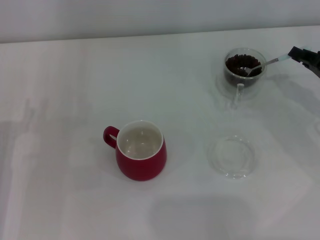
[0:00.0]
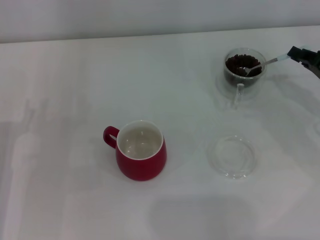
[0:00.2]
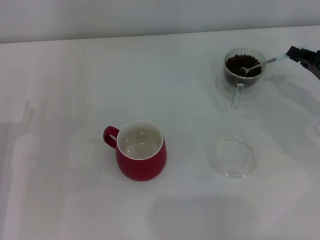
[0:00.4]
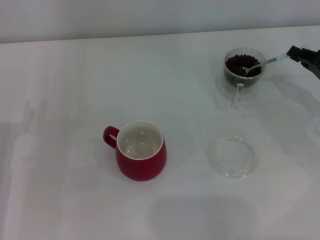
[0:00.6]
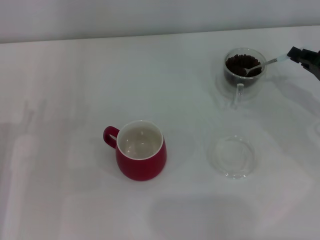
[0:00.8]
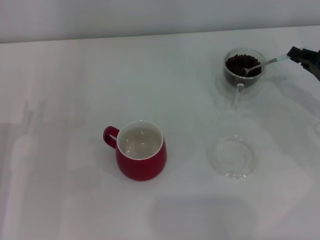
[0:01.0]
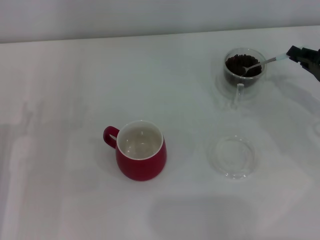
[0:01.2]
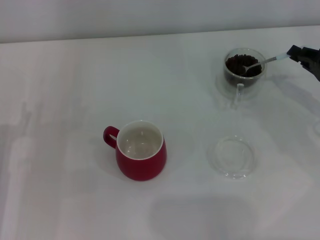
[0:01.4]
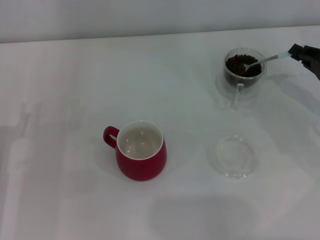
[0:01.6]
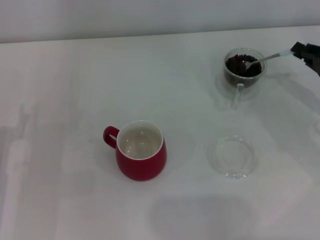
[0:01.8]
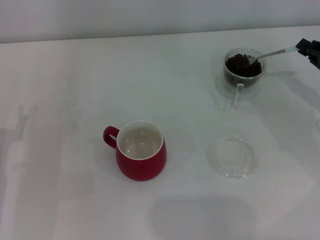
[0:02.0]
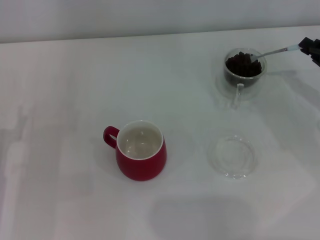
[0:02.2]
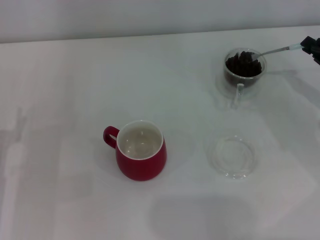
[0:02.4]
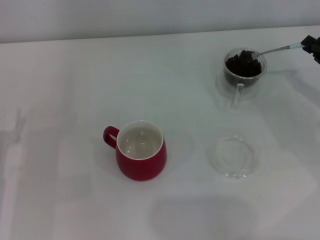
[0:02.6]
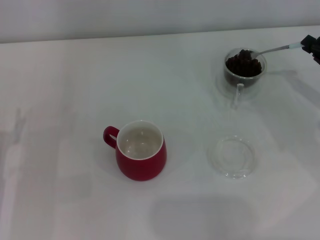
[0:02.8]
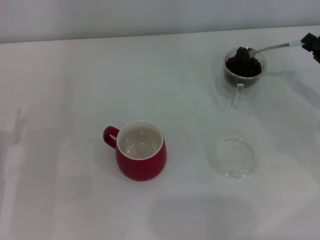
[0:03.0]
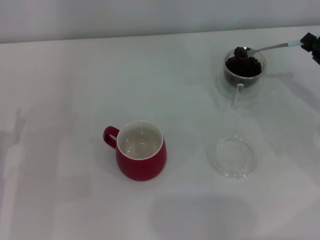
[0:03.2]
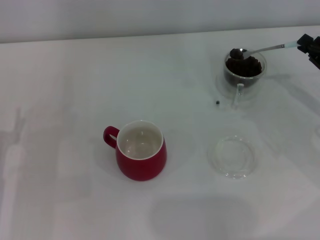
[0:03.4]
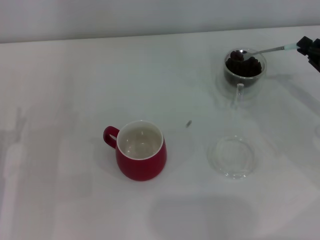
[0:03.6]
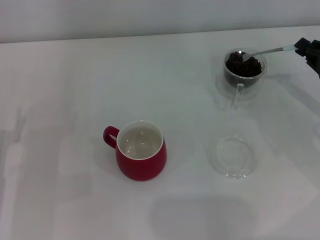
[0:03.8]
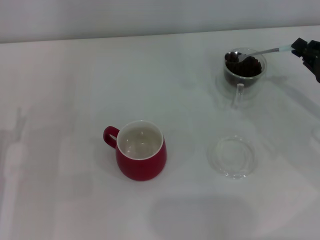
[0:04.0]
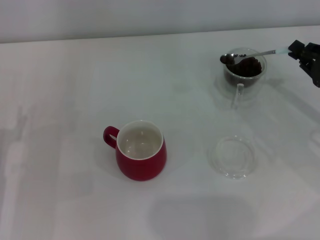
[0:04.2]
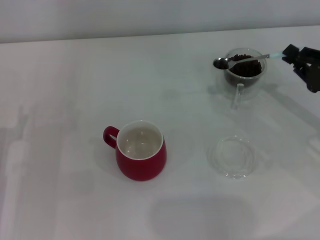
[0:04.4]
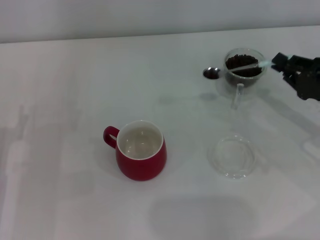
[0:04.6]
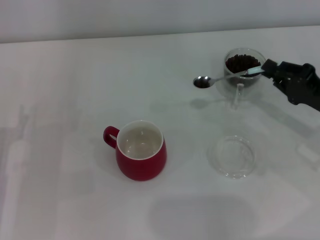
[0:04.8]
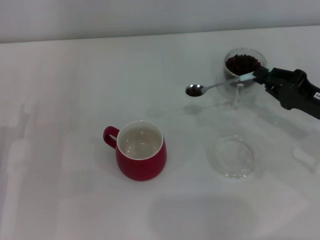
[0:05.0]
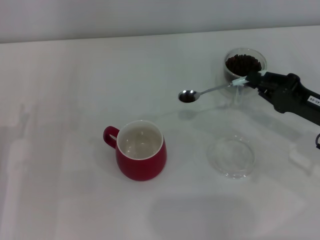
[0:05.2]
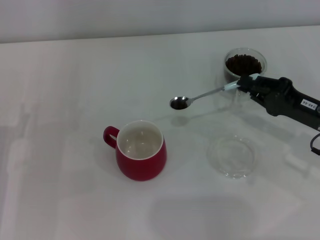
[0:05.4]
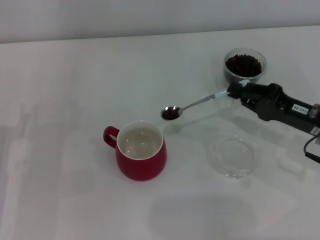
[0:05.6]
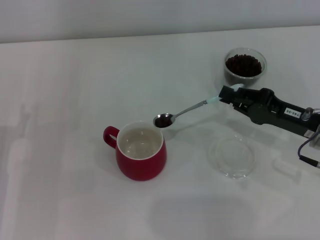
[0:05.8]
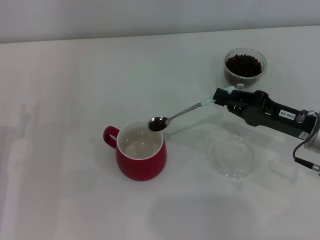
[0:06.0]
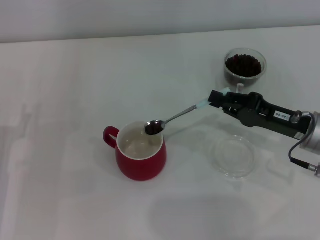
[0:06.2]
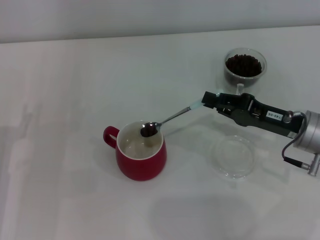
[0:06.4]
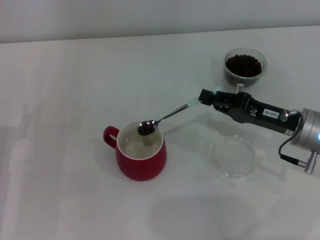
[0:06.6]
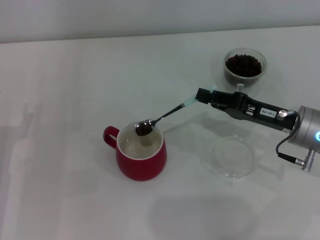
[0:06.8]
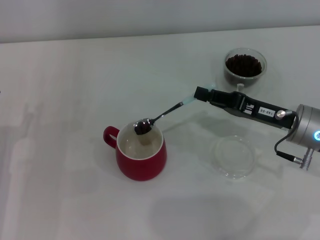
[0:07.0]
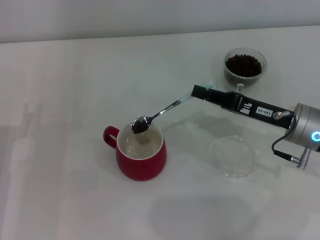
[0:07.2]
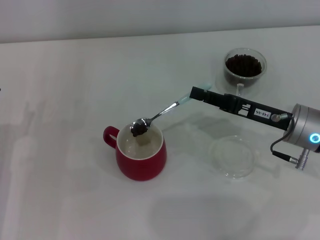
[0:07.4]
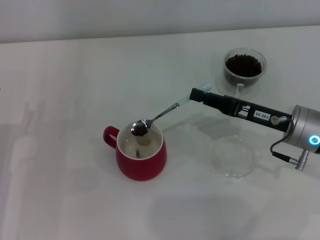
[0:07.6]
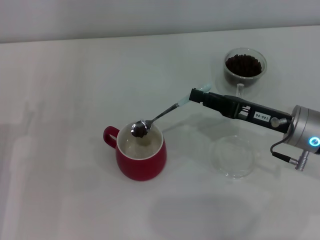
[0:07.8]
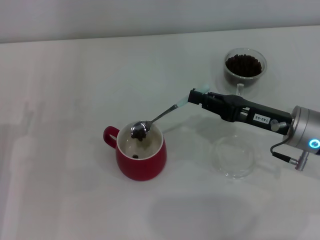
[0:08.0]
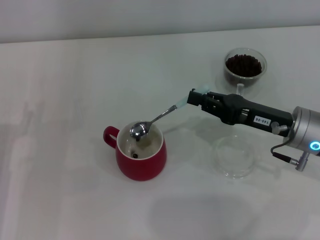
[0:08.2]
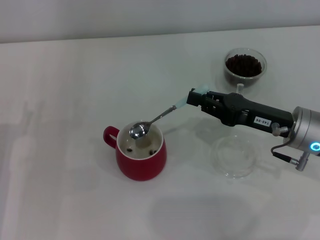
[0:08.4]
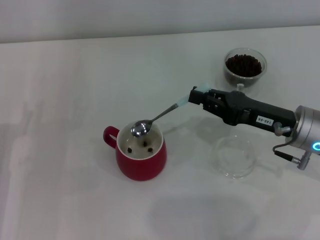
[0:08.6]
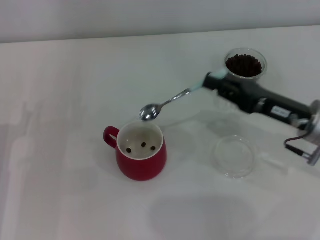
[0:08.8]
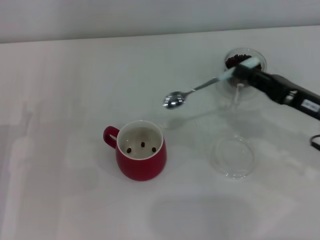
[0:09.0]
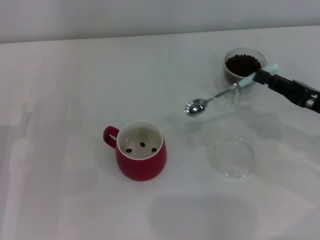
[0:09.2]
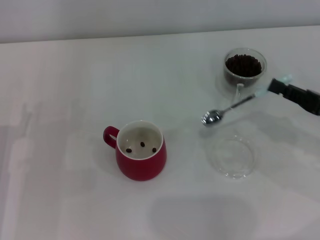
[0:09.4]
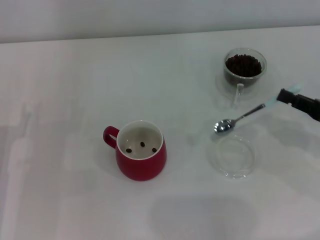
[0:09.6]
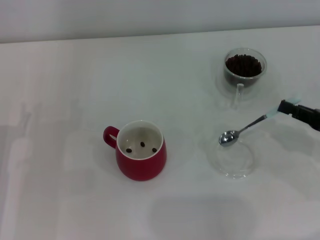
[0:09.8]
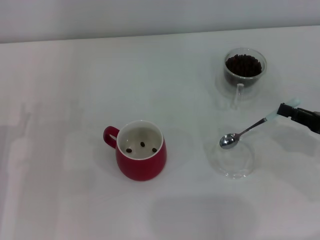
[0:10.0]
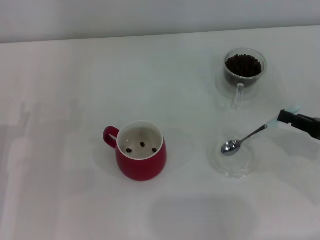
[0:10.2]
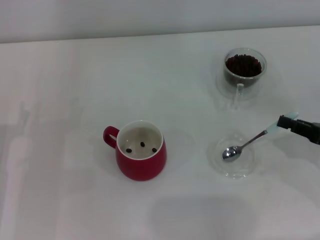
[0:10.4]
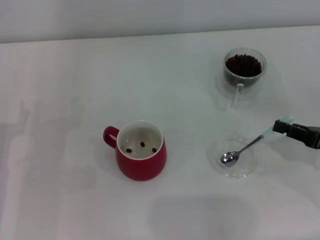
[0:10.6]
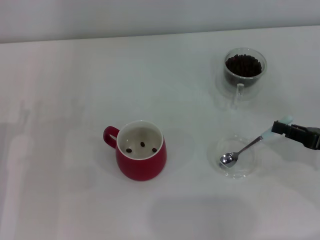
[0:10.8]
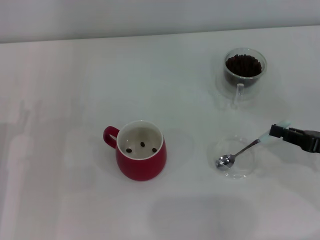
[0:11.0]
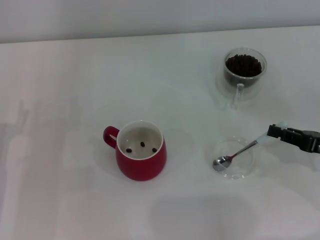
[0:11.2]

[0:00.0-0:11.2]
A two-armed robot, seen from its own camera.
Task of the whole recording: Use a blue spoon to take out the coffee beans from the glass and pour them into the red cup.
Step, 0:00.0 to 0:08.6: Scoop a spoonful of beans into the cup with the right gripper.
0:01.6 to 0:03.2: The grippers make only small movements.
0:03.2 to 0:04.8: The right gripper ends up roughly 5 cm from where it was.
0:04.8 to 0:06.4: The right gripper travels to the left by some 5 cm.
0:08.0 to 0:09.6: The right gripper is displaced to the right by about 10 cm.
0:09.6 to 0:11.2: The grippers make only small movements.

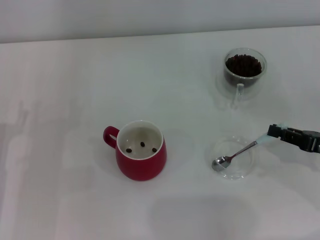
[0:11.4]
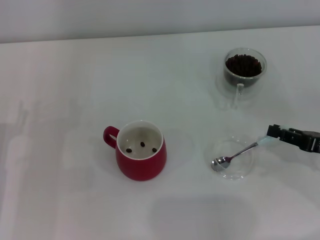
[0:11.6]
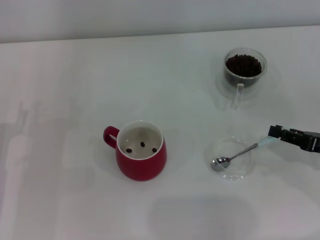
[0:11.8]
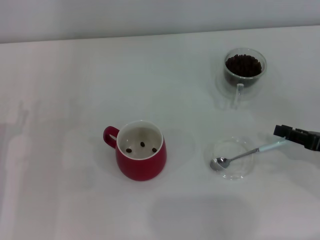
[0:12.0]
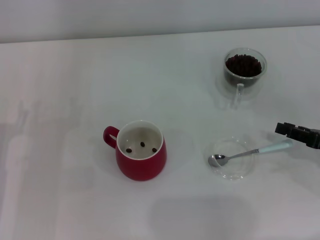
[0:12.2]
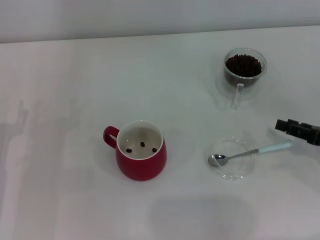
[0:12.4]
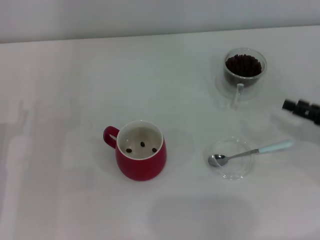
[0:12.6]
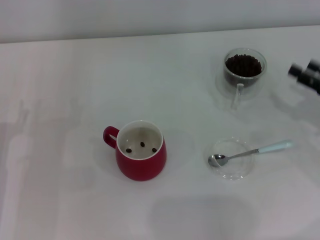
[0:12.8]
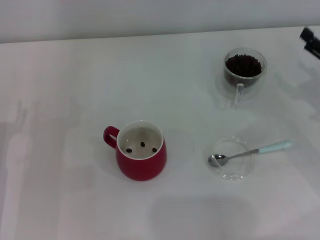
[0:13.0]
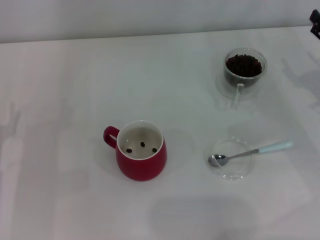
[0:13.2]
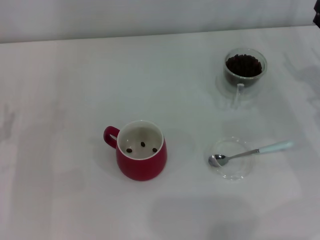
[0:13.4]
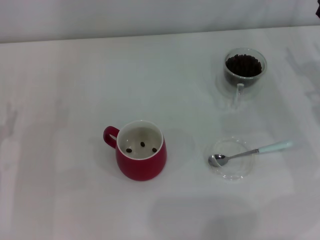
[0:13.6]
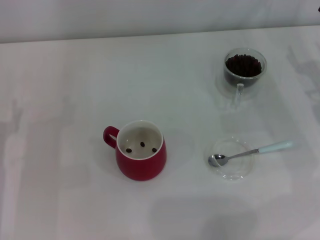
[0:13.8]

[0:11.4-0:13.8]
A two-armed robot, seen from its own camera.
Task of the whole recording: Use a blue spoon to take out the coffee beans from the glass and pour them into the red cup.
0:11.4 to 0:12.6: The right gripper opens.
0:12.6 to 0:13.8: The right gripper travels forward by about 10 cm, and opens.
